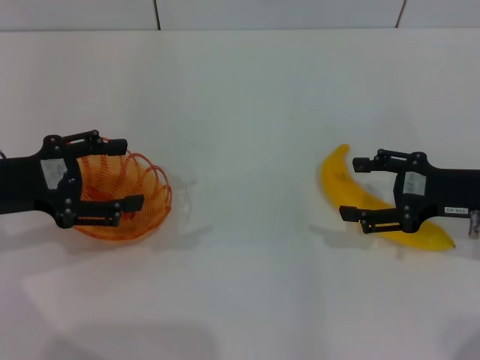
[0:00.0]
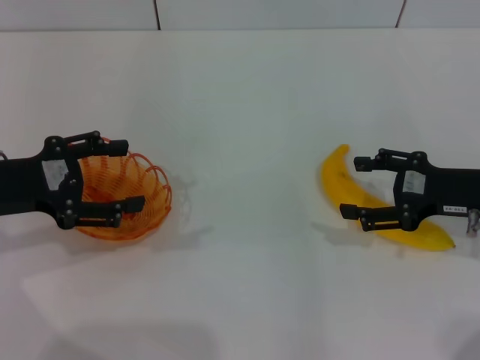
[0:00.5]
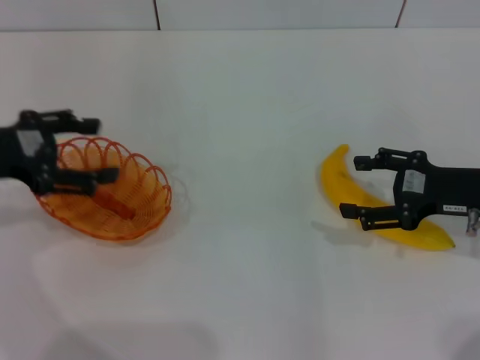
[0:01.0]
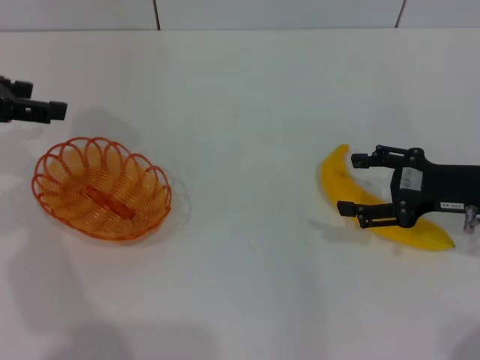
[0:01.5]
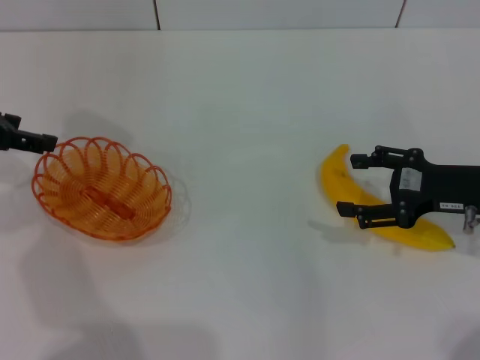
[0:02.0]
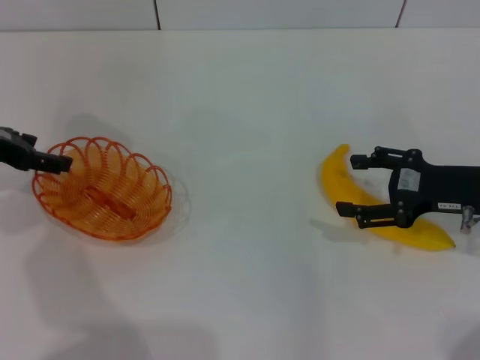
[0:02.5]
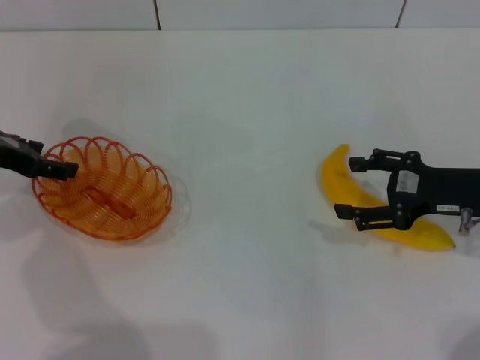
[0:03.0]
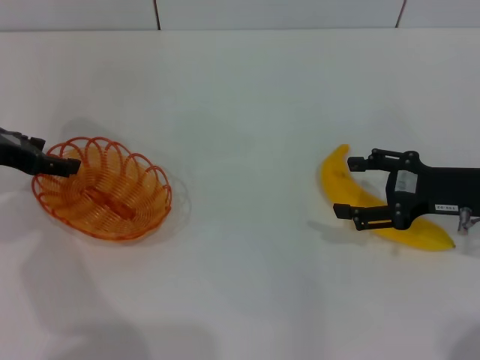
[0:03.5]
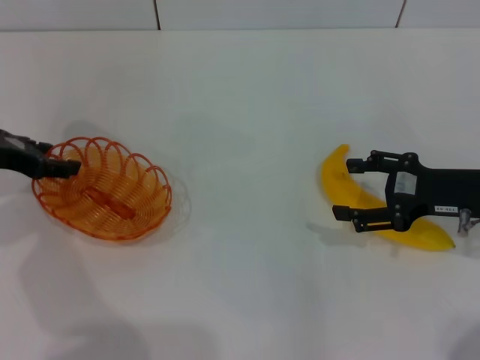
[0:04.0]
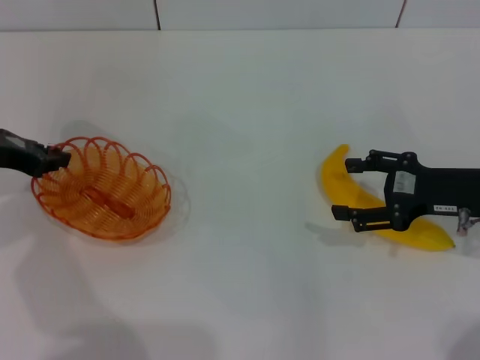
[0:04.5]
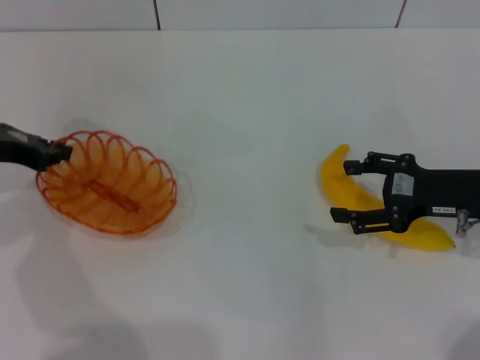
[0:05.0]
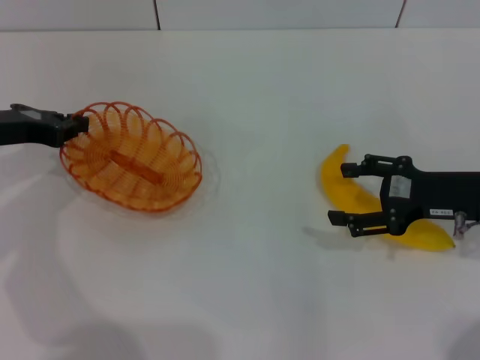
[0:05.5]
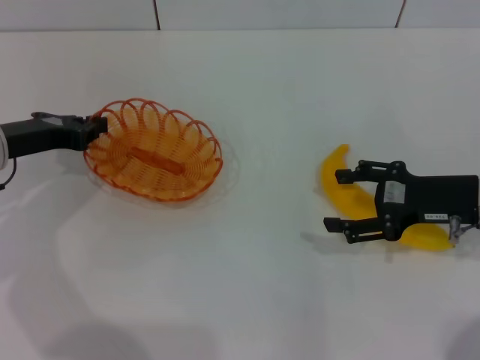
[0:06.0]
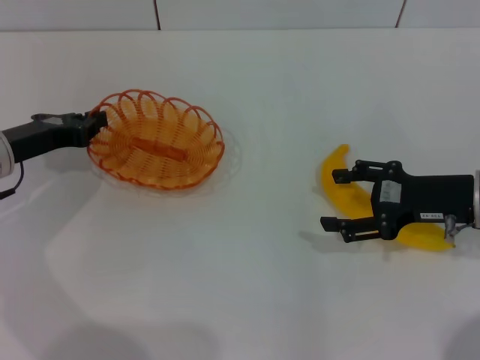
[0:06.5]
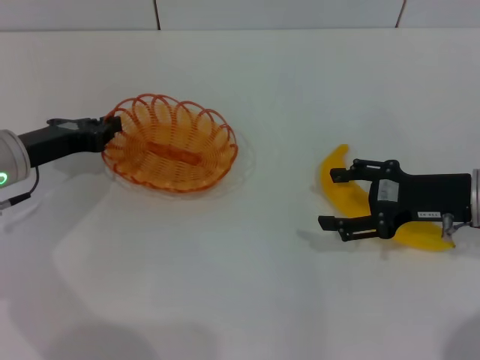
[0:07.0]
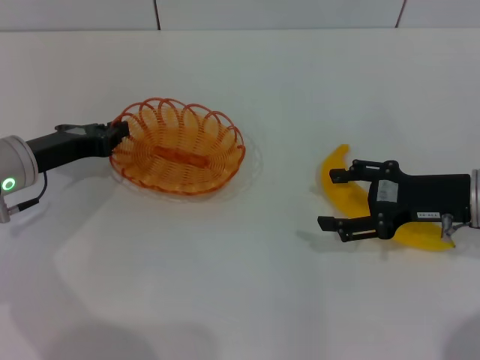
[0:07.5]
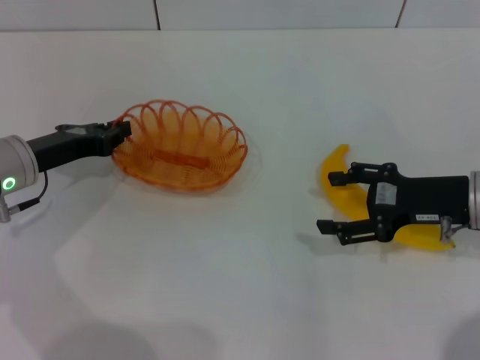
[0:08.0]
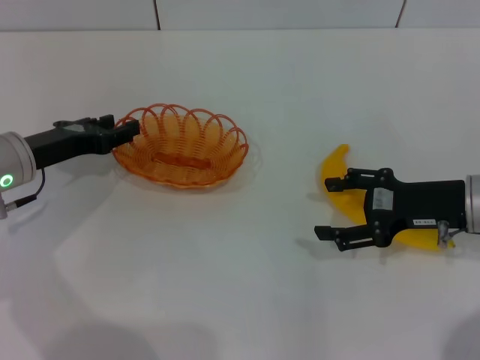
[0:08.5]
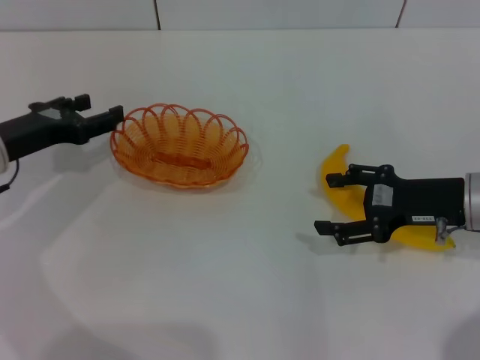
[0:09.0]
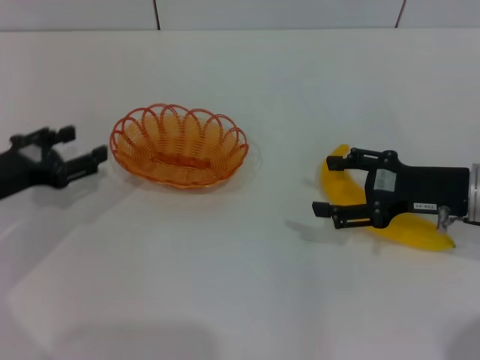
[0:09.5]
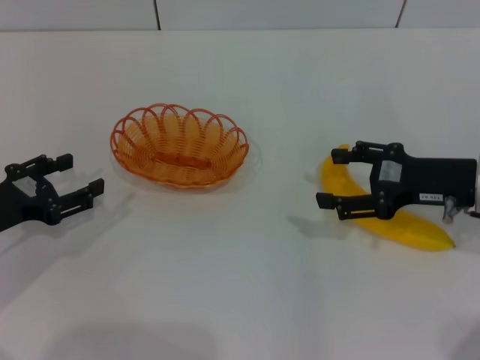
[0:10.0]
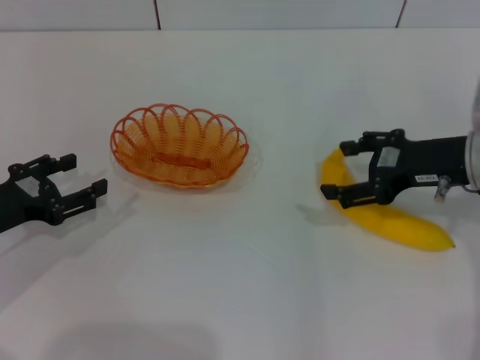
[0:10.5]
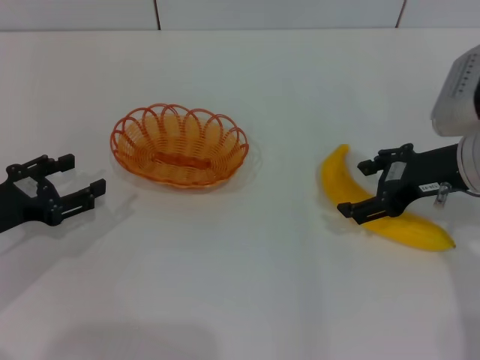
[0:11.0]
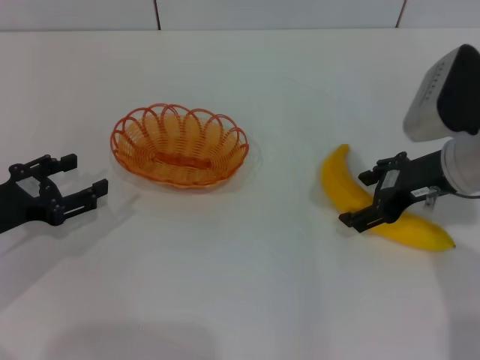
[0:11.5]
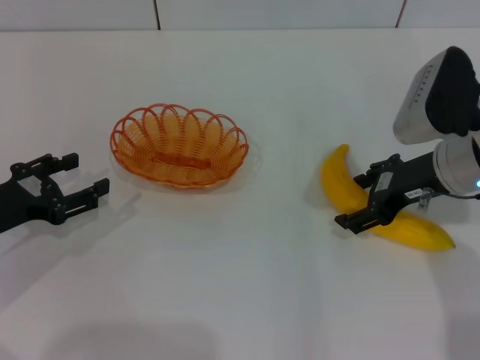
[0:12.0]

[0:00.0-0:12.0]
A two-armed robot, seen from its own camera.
Step, 0:00.0 to 0:05.0: Pick up the basket with the left gripper.
Step, 0:05.5 to 0:09.0: Place the basket in the center of view with the left gripper.
0:00.0 to 0:02.0: The left gripper travels forward and upward by about 10 cm.
0:02.0 to 0:04.0: The left gripper travels downward by about 5 cm.
0:04.0 to 0:06.0: The left gripper closes its fingers.
0:06.0 to 0:08.0: The grippers move only a little.
0:08.0 to 0:10.0: The left gripper travels backward and to the left by roughly 10 cm, and opens its fingers.
0:10.0 to 0:12.0: The right gripper shifts by approximately 5 cm.

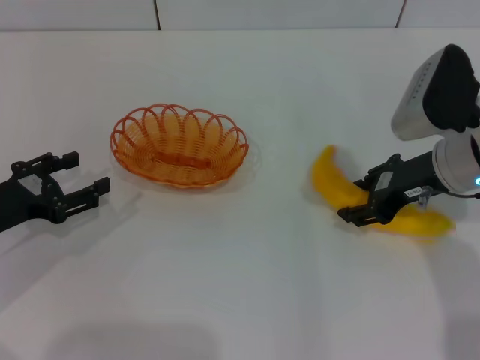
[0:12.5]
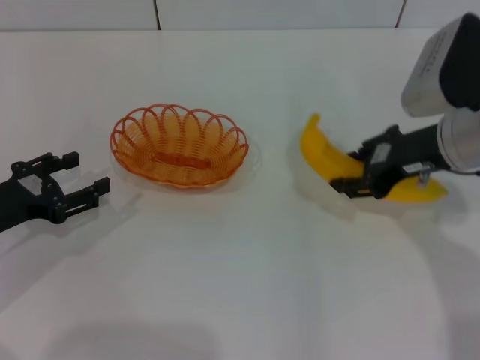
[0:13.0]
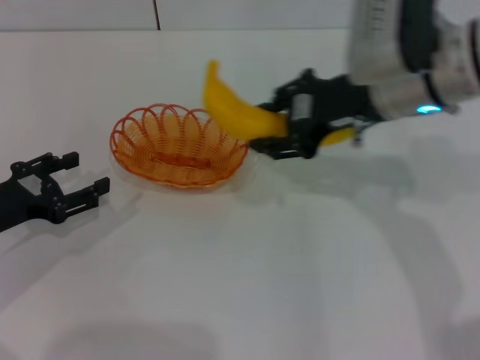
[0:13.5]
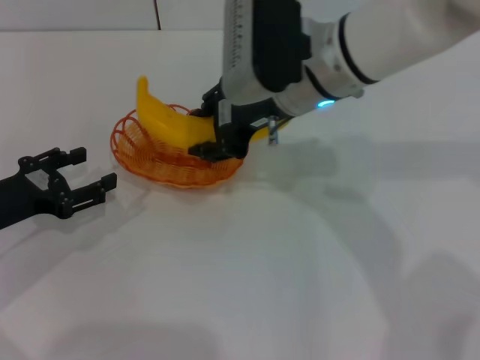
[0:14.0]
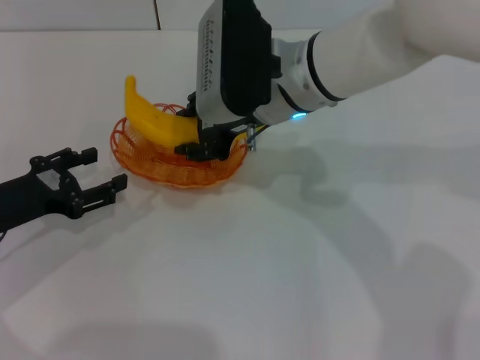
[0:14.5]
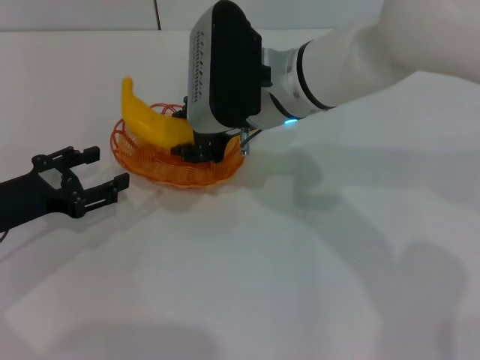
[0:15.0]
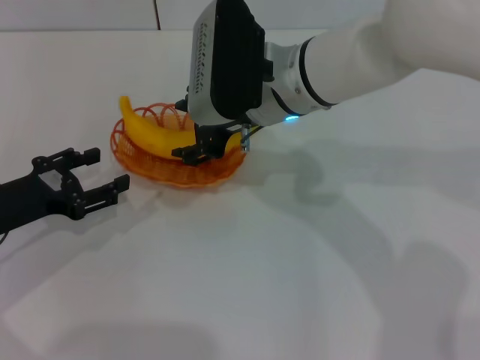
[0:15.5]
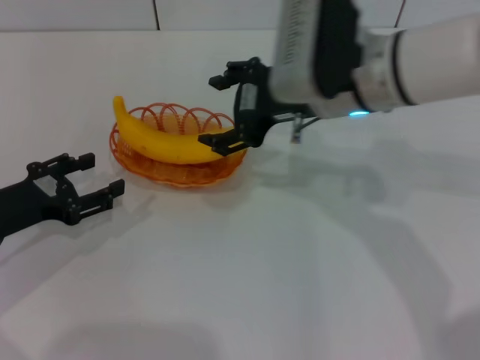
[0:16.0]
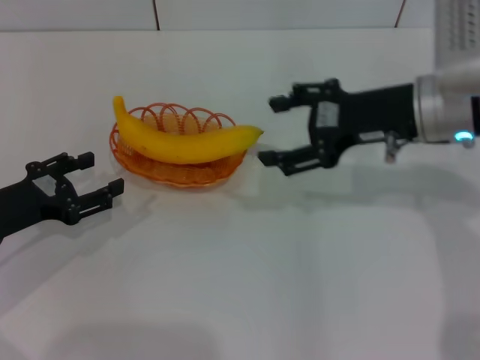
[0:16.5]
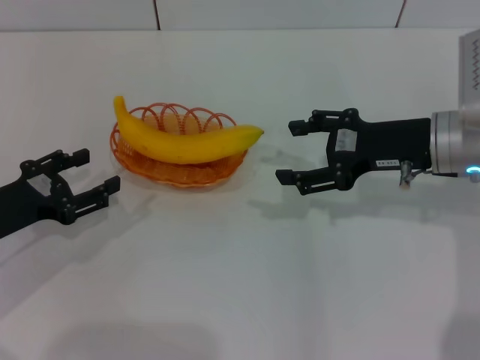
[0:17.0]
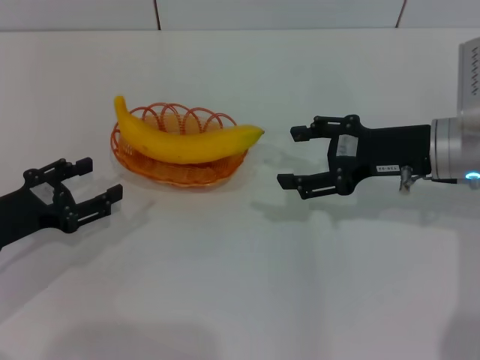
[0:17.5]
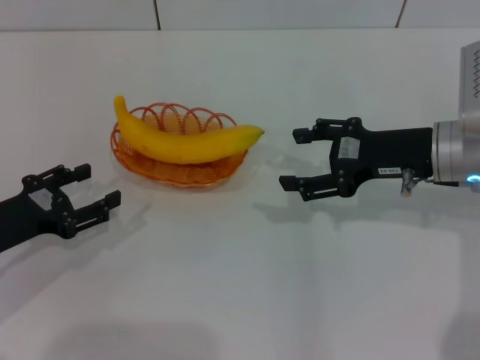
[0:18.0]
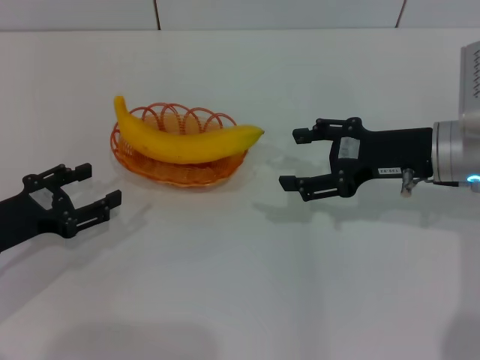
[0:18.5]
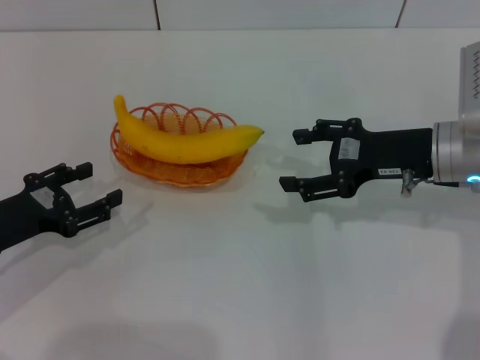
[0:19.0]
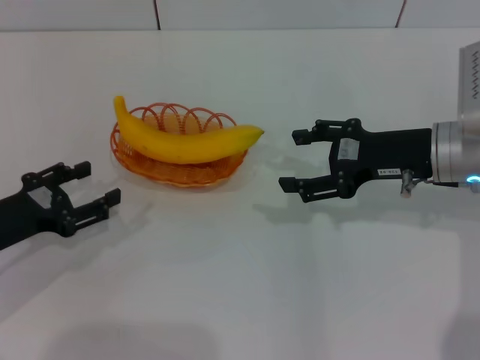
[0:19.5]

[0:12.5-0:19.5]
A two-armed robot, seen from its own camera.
Step, 0:13.5 to 0:16.5: Place the banana into the basket with the right gripper.
0:12.5 to 0:14.5: The right gripper shifts approximately 15 cm to the left, and closes.
0:14.5 to 0:16.0: The right gripper shifts some 5 cm to the right, and opens its fingers.
0:16.0 to 0:17.5: The right gripper travels to the right and downward by roughly 15 cm.
0:17.5 to 0:19.5: Neither gripper changes place.

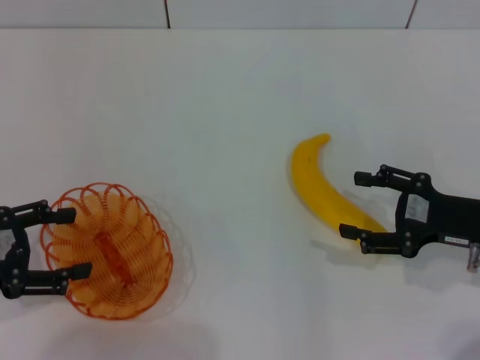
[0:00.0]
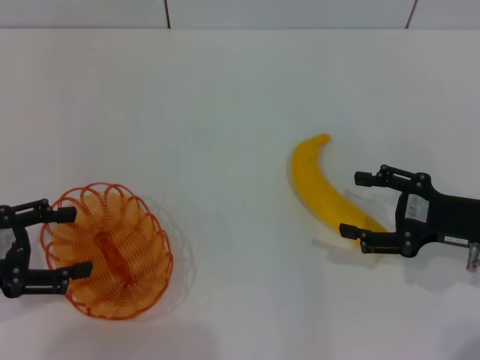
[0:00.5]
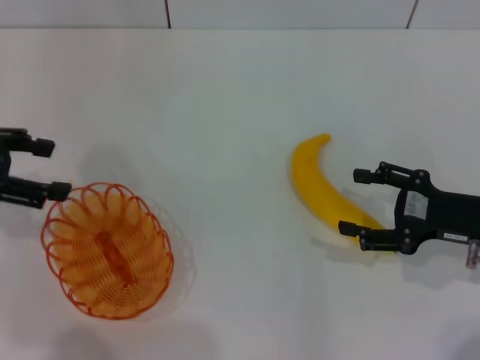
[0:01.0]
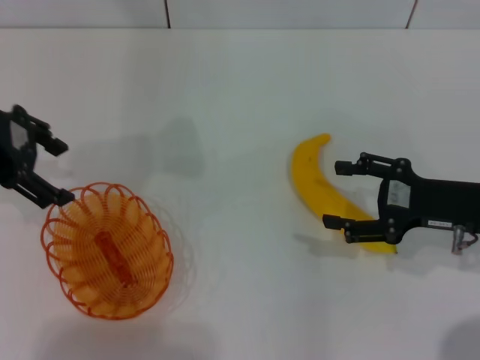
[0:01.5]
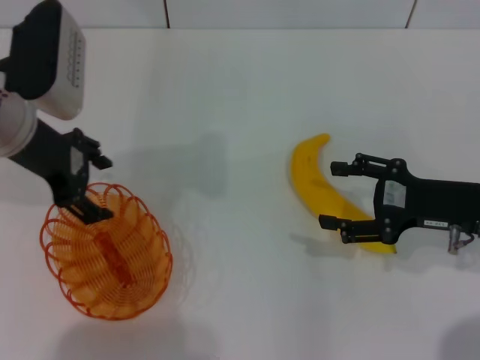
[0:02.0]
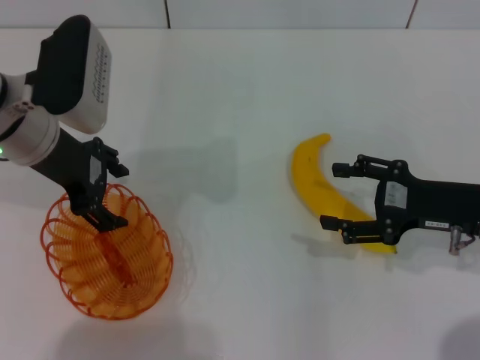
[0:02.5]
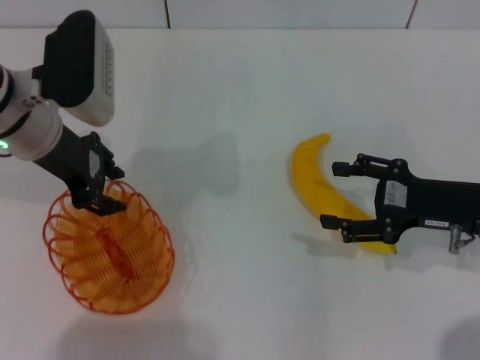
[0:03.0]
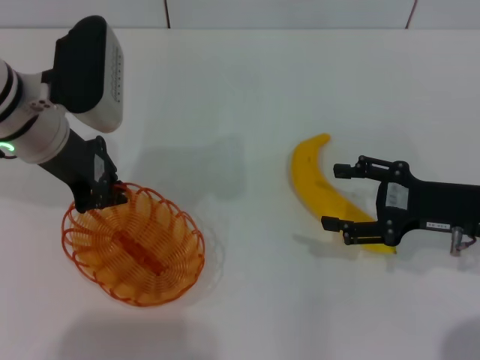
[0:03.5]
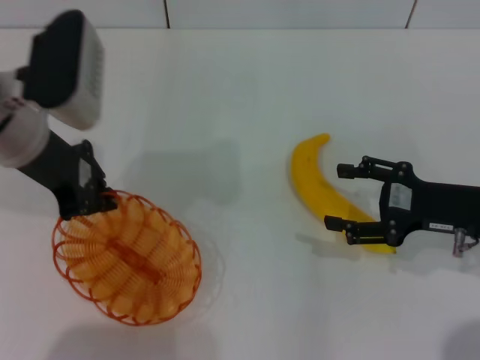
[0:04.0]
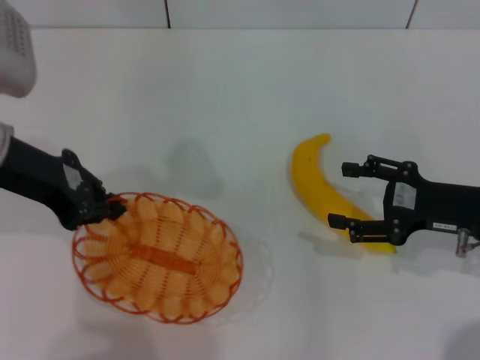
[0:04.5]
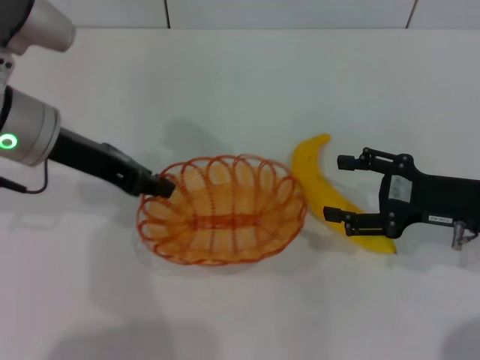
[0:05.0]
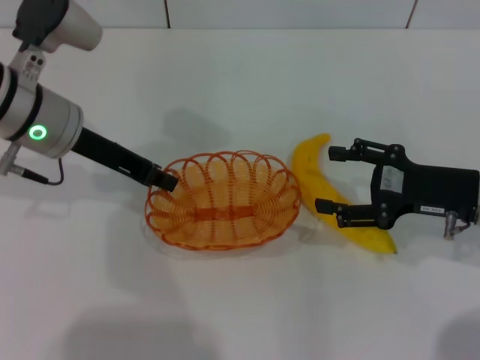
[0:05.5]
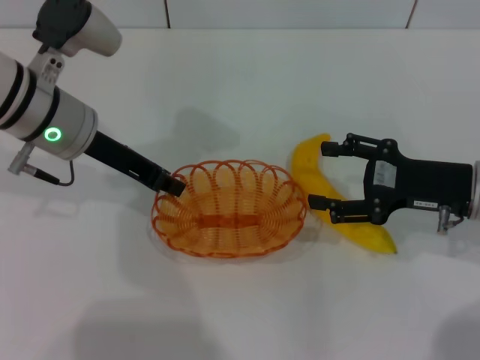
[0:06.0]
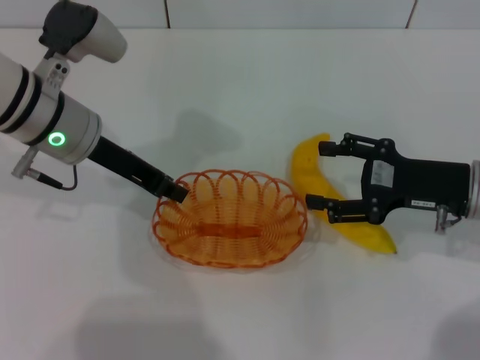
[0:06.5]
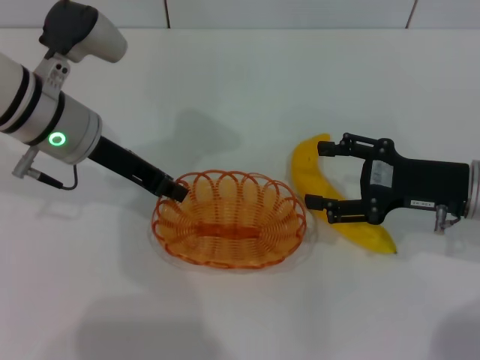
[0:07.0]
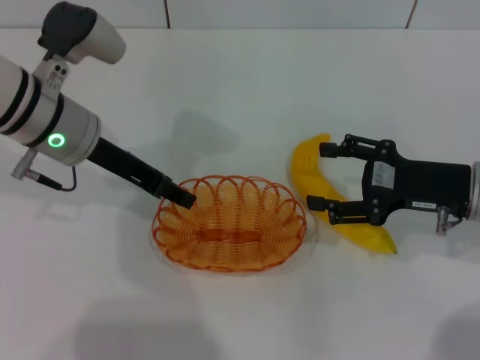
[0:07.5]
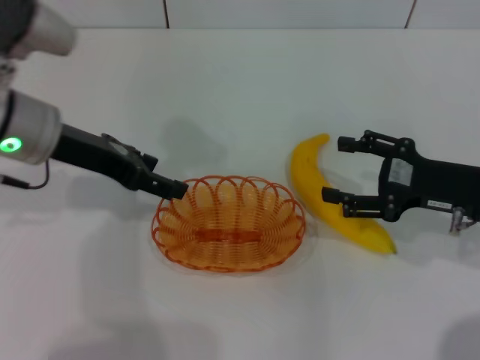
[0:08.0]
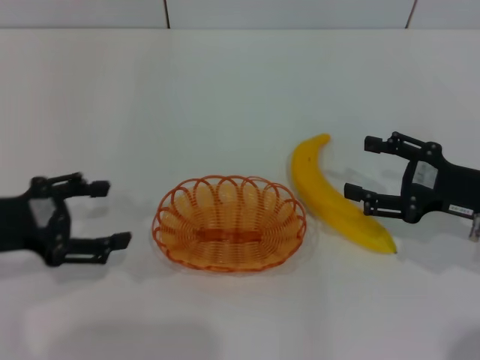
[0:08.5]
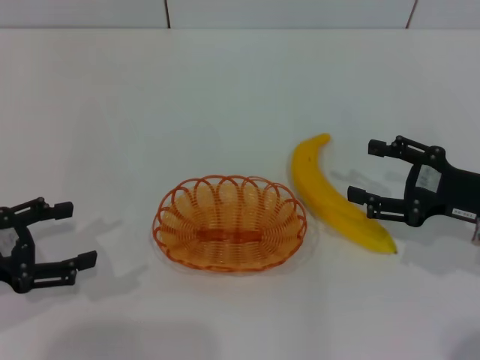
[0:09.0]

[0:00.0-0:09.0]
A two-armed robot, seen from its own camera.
Step, 0:00.0 to 0:04.5: Pick up the basket with the left gripper.
Step, 0:05.0 to 0:07.5: Place the basket in the center of view with the left gripper.
0:00.0 to 0:02.0: The left gripper goes roughly 20 cm forward, to the right and upward.
0:02.0 to 0:04.5: The left gripper closes.
0:04.5 to 0:07.0: The left gripper goes some 5 cm to the right.
0:07.0 to 0:09.0: The left gripper is displaced to the left and backward by approximately 20 cm, and opens up.
